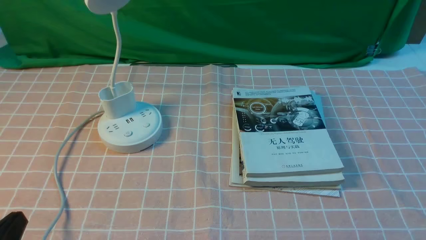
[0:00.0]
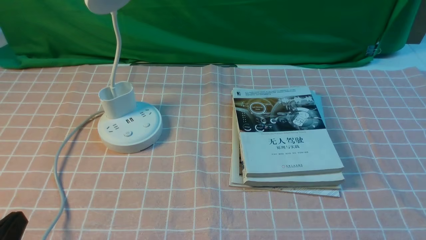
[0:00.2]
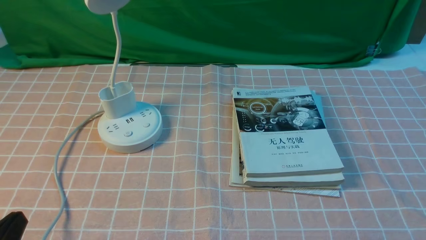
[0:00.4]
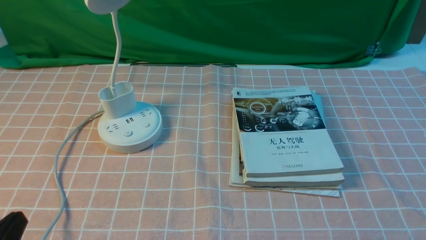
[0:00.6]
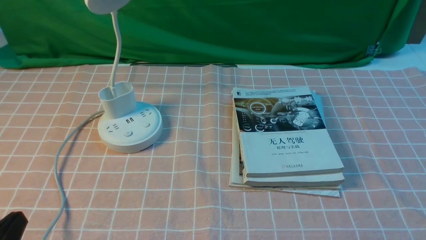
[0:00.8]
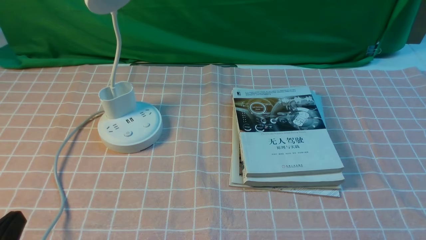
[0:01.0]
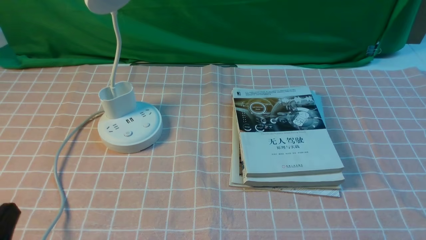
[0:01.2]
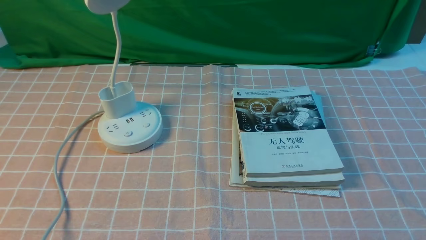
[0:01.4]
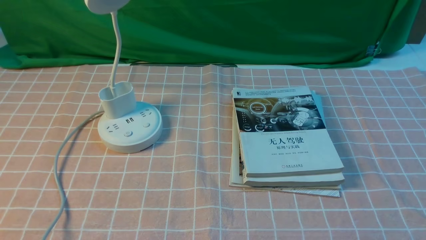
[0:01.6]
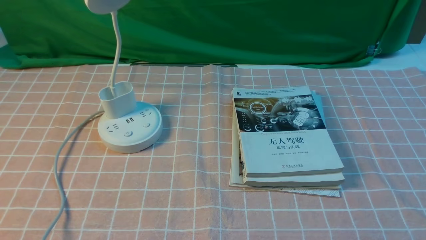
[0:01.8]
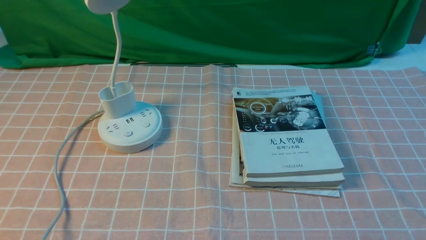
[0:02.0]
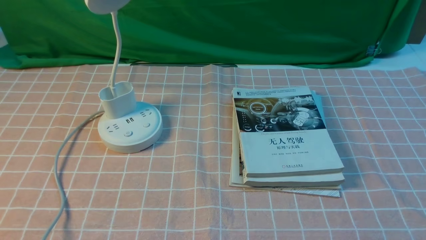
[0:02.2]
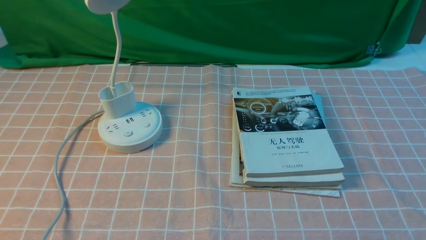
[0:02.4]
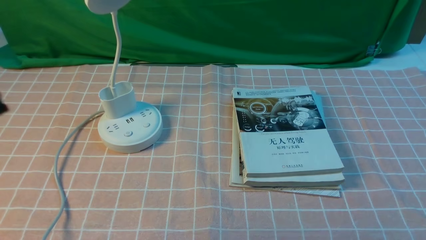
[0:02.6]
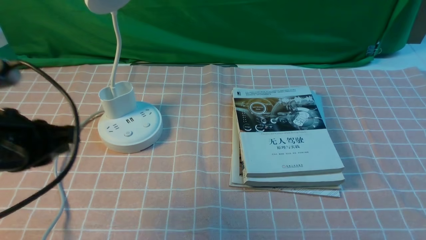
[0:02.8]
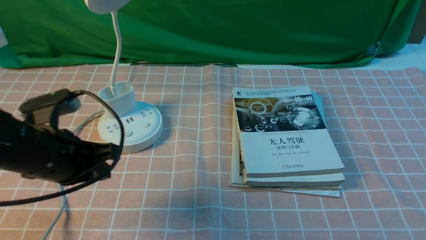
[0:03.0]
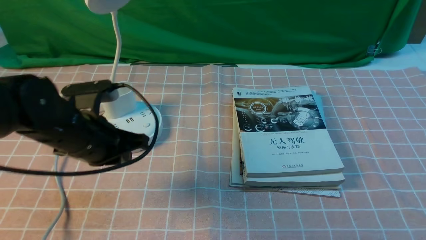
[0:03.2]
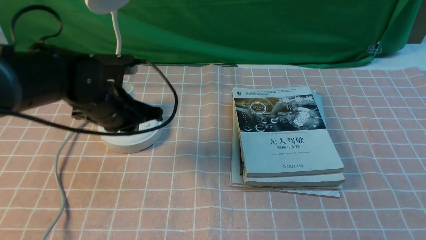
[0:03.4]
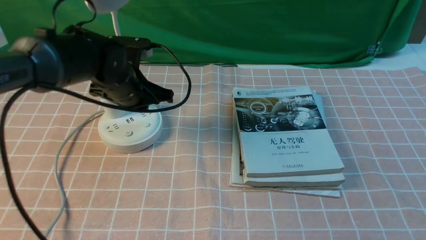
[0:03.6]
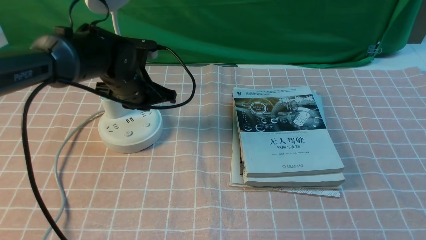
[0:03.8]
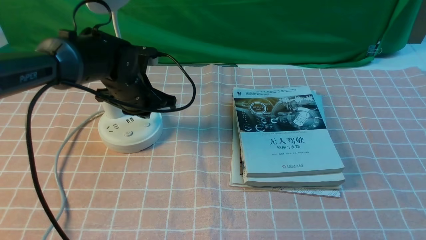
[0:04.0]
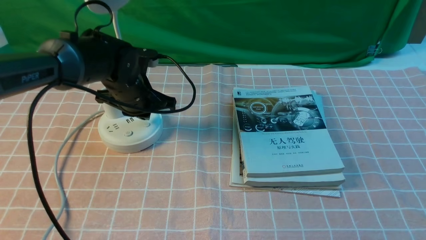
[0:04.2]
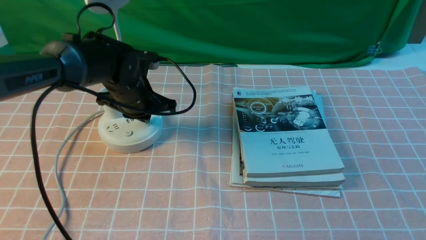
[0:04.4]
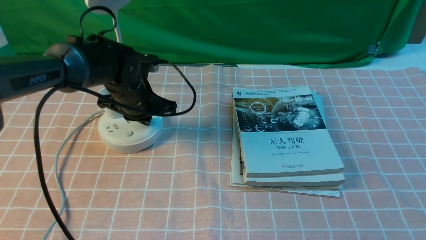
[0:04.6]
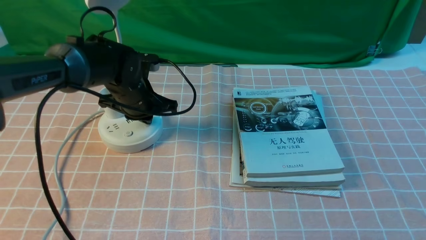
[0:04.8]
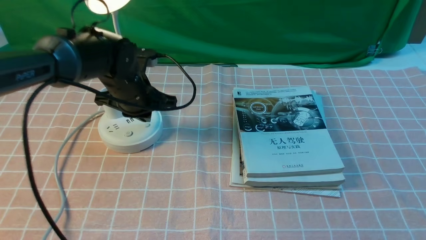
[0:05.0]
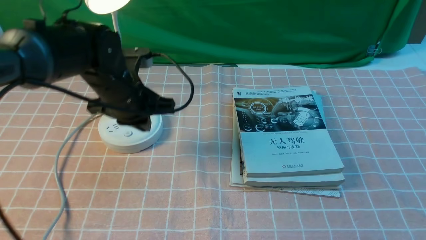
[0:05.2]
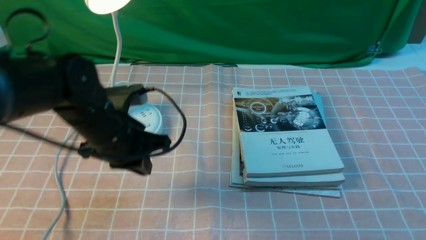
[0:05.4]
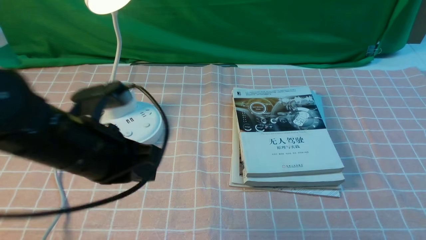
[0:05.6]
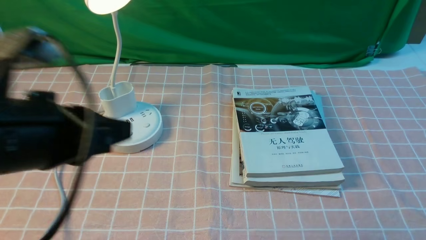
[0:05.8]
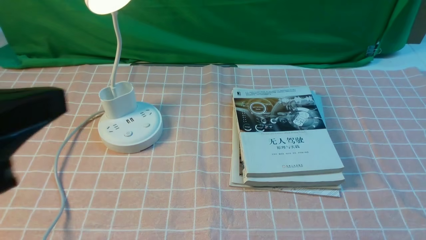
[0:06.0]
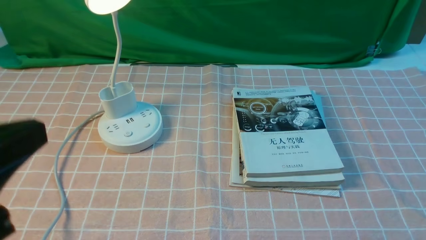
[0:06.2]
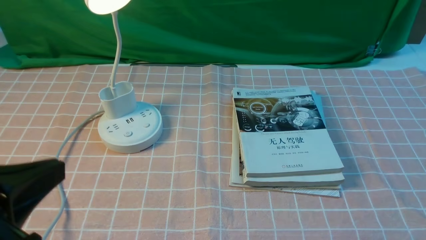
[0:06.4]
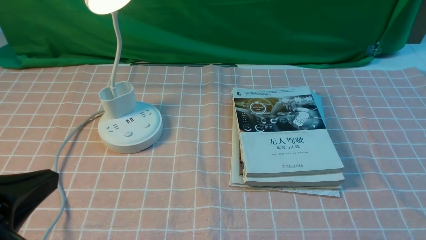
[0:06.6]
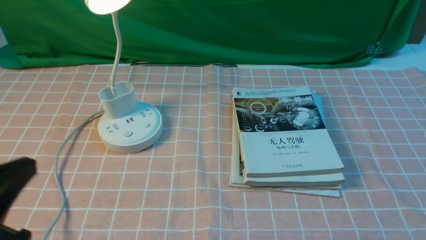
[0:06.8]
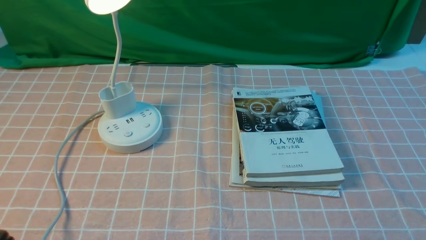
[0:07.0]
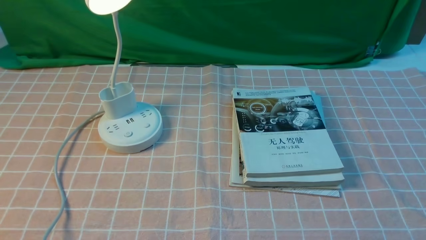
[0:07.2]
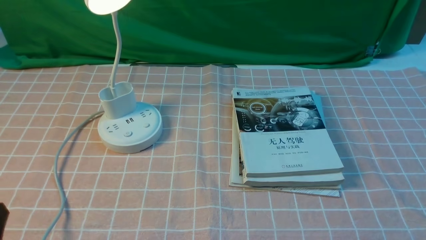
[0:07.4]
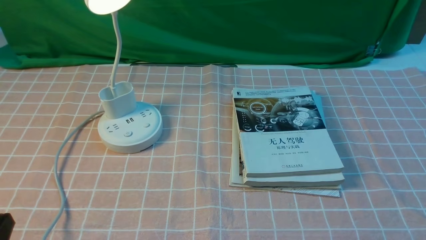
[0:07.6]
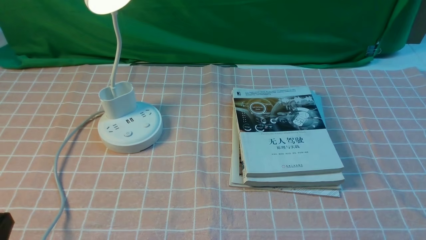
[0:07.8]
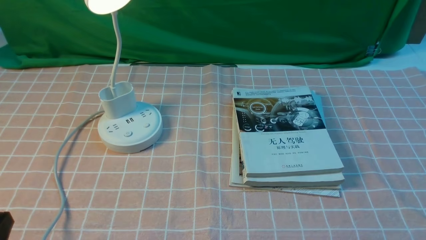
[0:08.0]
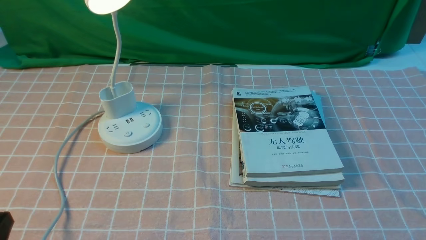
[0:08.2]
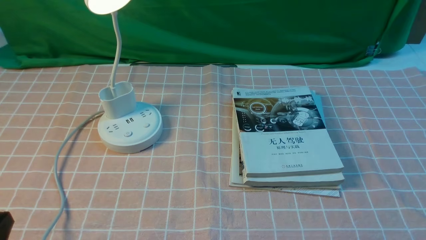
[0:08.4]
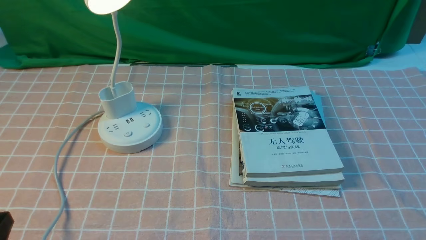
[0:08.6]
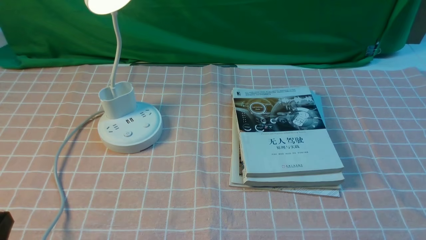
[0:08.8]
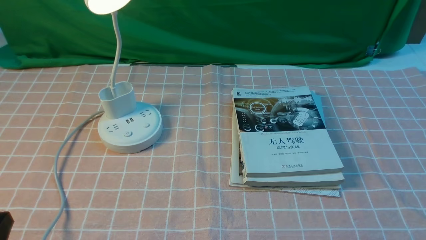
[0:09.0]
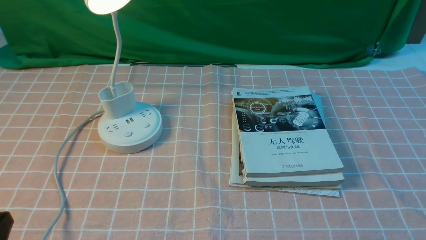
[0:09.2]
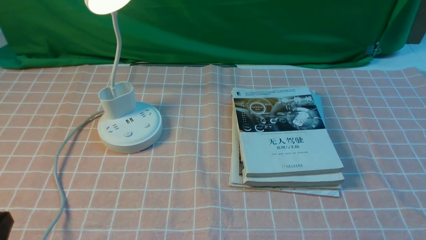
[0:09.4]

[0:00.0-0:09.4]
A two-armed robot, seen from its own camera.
Step, 0:00.0 to 0:05.0: use the left arm to press the button switch on the lamp holder.
0:00.0 to 0:01.6: The left gripper heads upward, covering roughly 5 cm.
0:01.6 to 0:03.2: The left gripper is displaced forward by approximately 25 cm.
0:03.2 to 0:04.8: The left gripper goes some 10 cm forward.
0:04.8 to 0:06.2: The left gripper moves backward and upward, about 35 cm.
0:06.2 to 0:07.8: The left gripper goes about 15 cm downward.
0:07.8 to 0:09.4: The two grippers keep their place.
